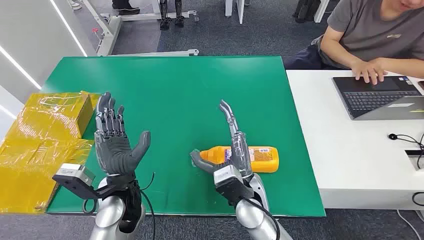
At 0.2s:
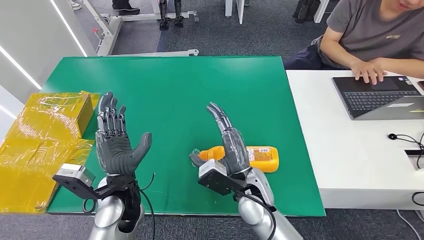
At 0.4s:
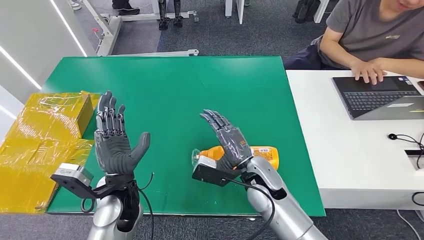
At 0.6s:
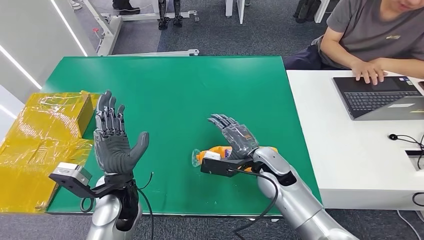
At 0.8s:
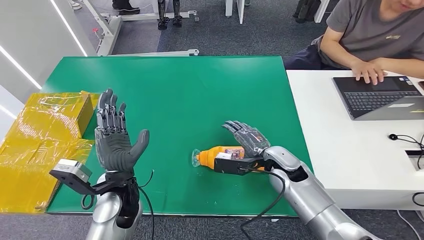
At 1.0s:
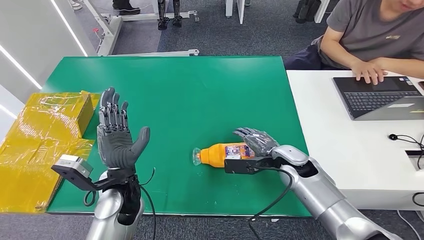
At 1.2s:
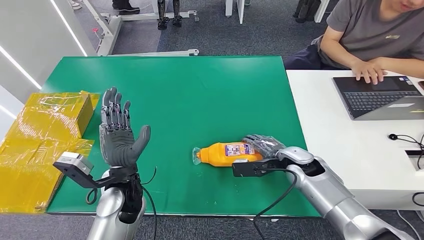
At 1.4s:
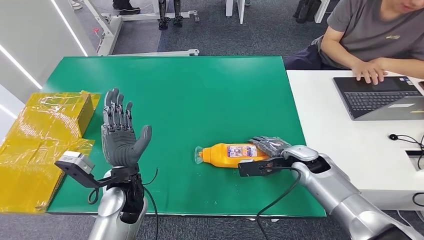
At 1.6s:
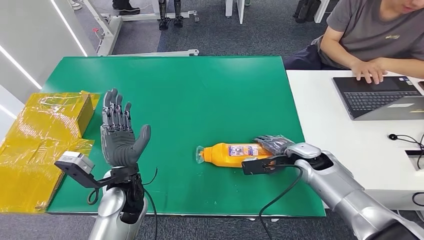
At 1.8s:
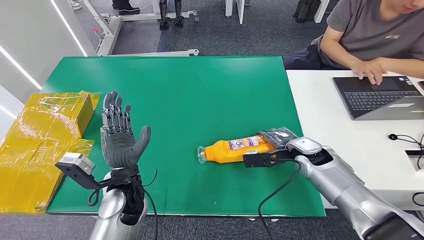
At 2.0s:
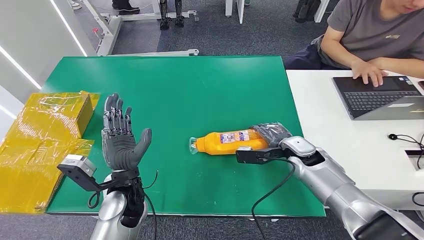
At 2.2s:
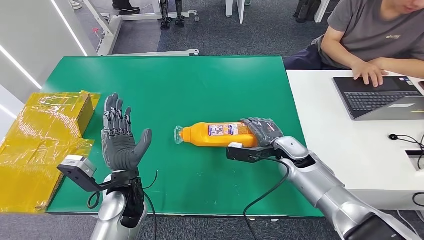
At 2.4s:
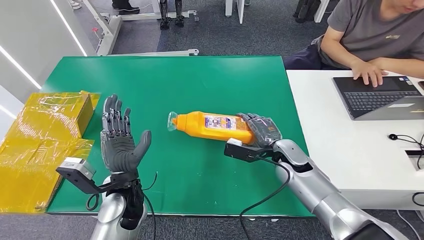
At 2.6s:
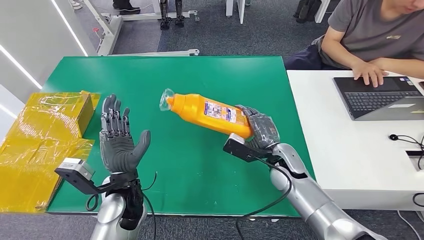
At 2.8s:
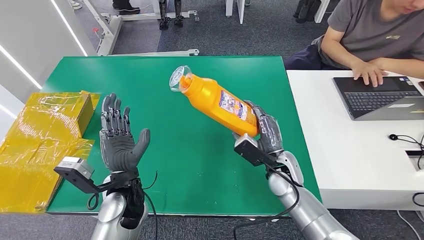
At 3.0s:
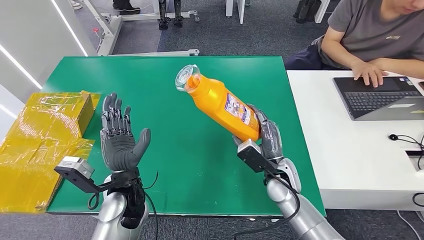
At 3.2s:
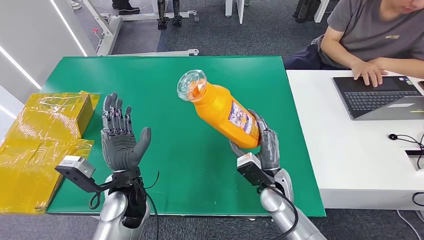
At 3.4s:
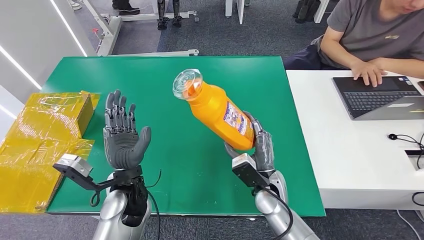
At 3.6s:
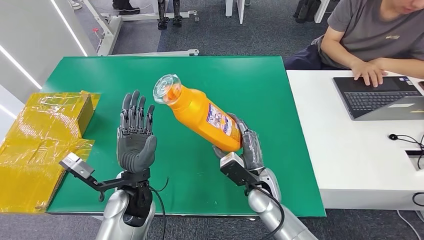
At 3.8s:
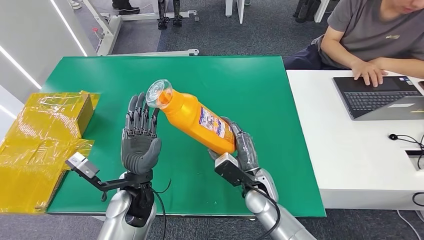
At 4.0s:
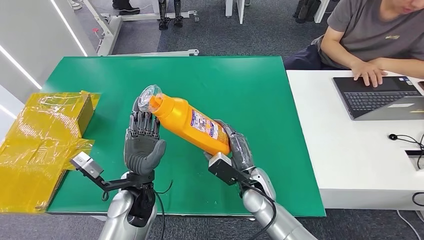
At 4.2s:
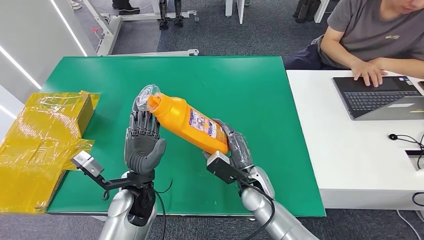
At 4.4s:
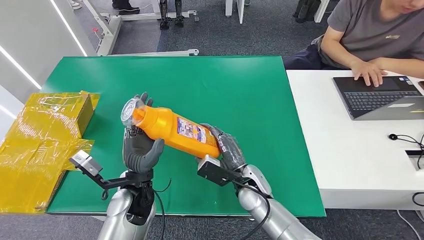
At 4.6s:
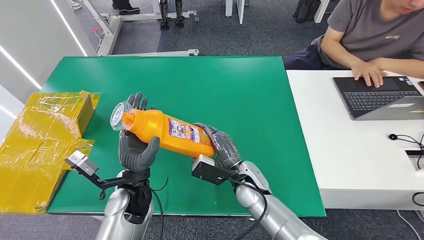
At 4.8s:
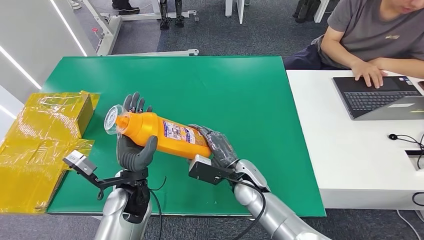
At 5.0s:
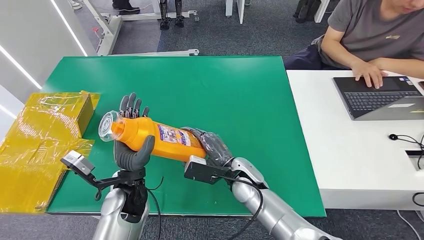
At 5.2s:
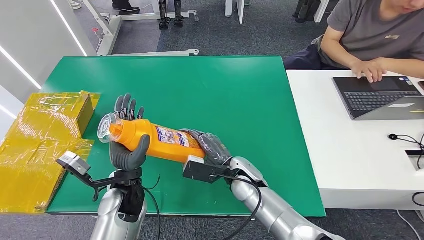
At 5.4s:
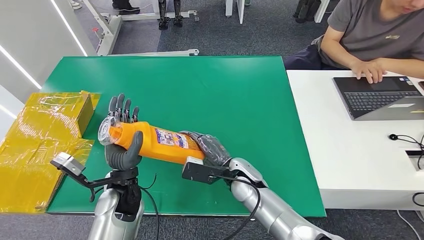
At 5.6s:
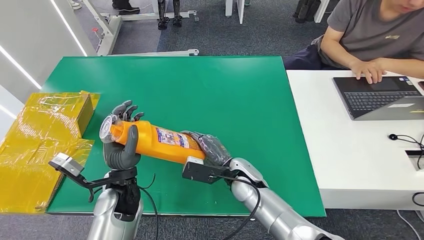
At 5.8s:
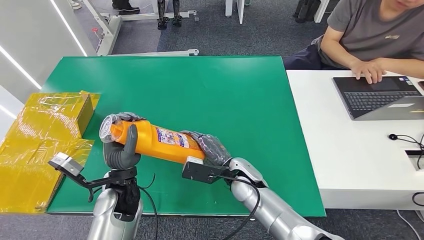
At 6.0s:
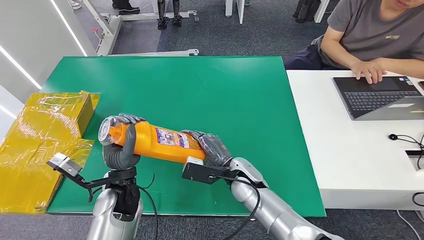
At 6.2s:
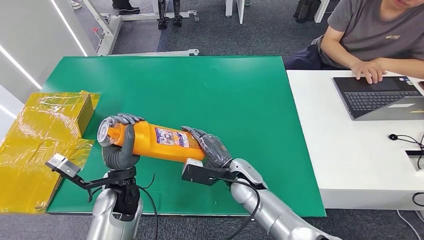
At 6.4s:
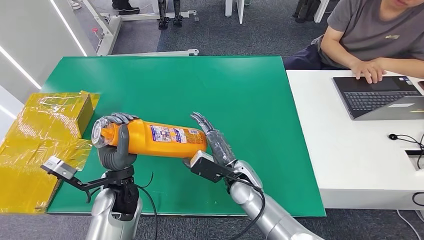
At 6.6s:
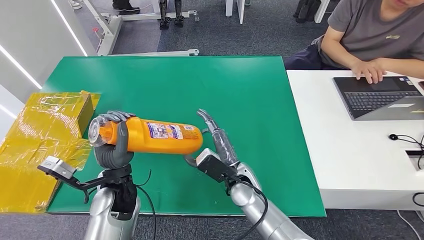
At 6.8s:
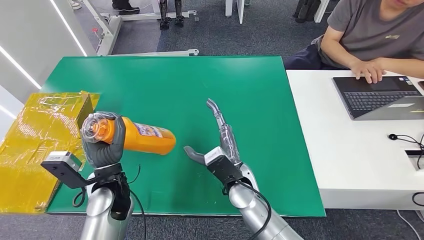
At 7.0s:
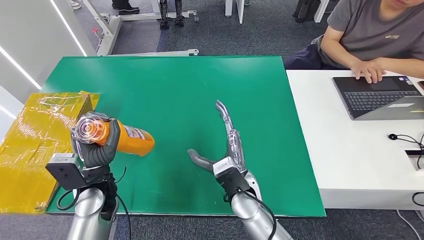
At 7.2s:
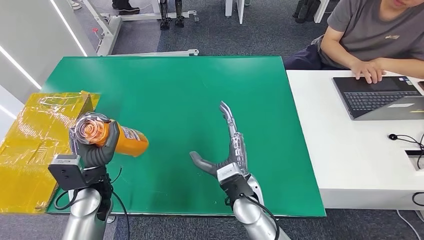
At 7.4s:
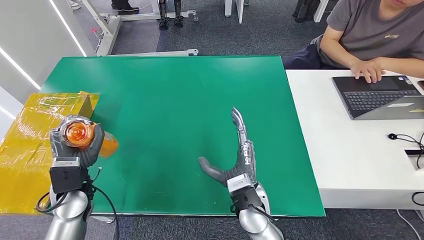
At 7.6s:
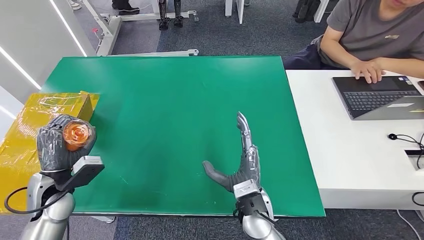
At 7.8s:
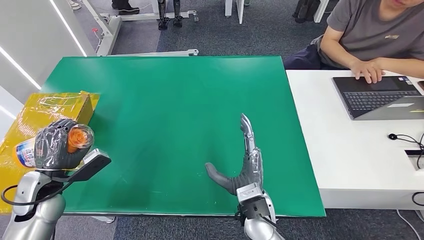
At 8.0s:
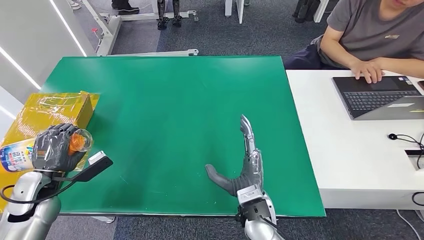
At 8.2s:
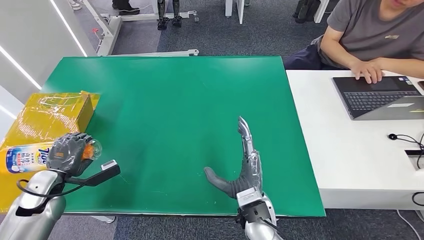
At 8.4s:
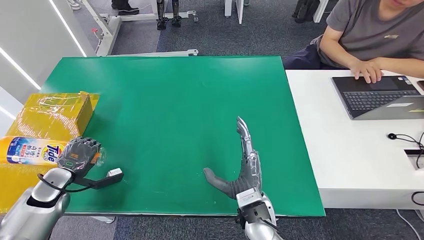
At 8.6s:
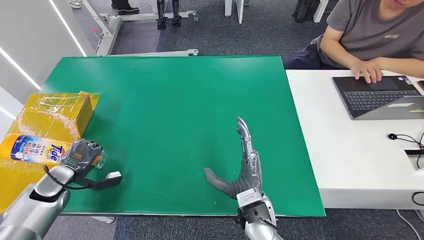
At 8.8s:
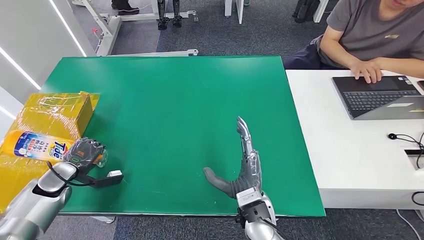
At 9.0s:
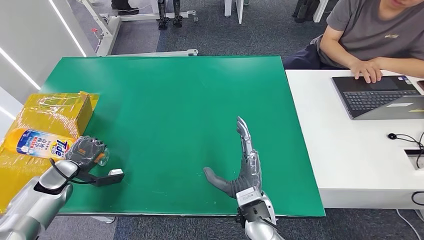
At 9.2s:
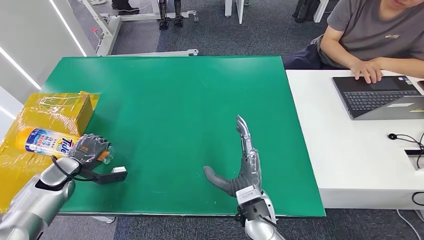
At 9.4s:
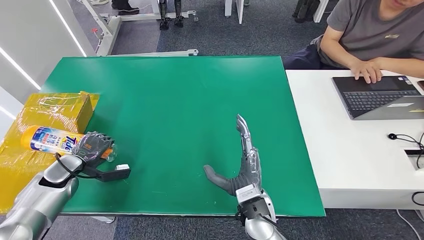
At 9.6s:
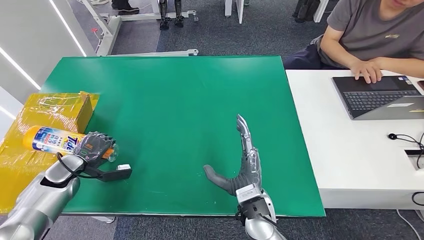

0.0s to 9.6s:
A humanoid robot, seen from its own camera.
Step, 0.0s to 3.0s: Pick up the bottle from the table.
1.6s to 3.2s: The right hand is displaced to the left and backward by some 15 cm.
3.2s to 4.8s: The right hand moves to the left, roughly 10 cm.
4.8s to 6.4s: The hands move only a little.
6.4s to 8.0s: The left hand is displaced to the left by about 20 cm; the right hand goes about 10 cm backward.
8.0s to 9.6s: The left hand shifts approximately 10 cm forward and downward.

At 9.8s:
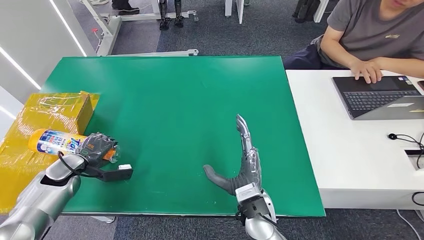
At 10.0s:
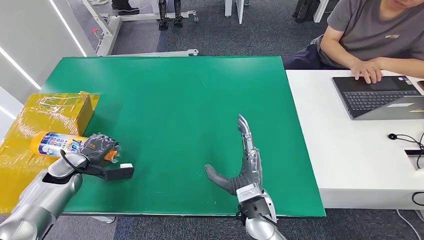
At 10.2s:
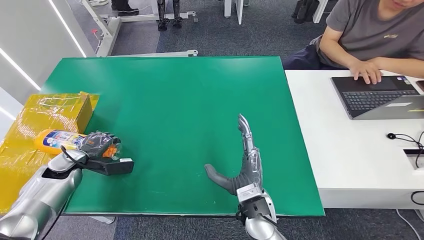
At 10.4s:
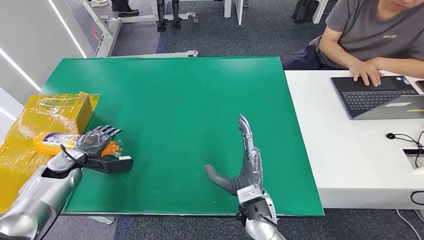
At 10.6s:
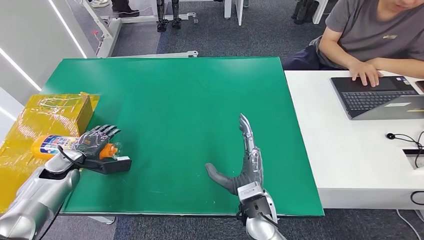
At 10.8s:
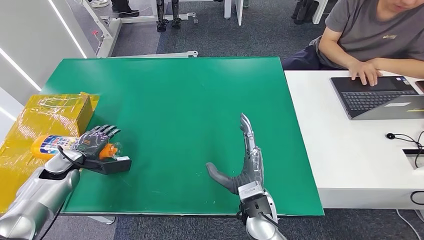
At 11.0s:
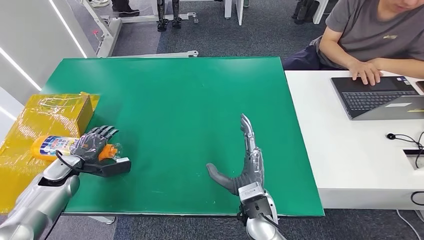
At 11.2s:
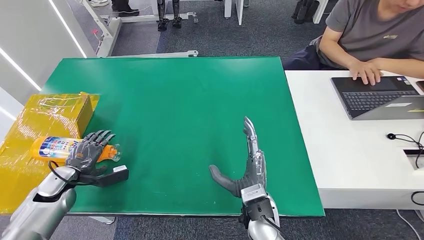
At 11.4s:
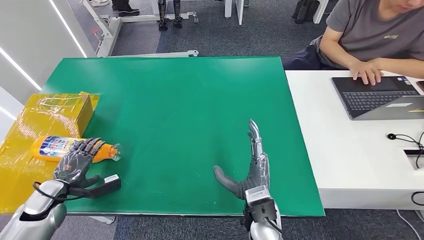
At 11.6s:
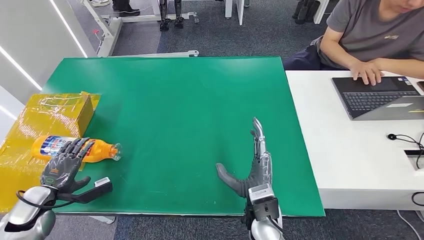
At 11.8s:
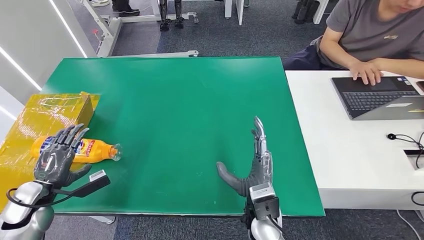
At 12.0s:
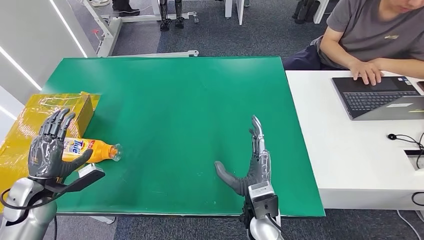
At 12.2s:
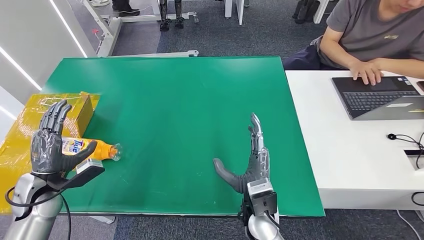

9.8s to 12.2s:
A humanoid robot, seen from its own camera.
Step, 9.8s to 12.2s: Turn the bottle to the front side.
9.8s to 11.0s: The hands move only a little.
11.0s to 12.2s: The left hand is displaced backward and upward by about 10 cm.

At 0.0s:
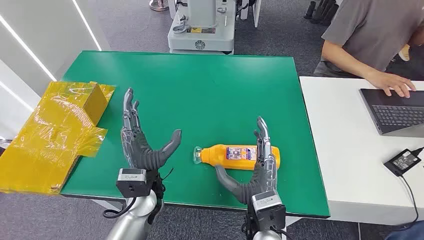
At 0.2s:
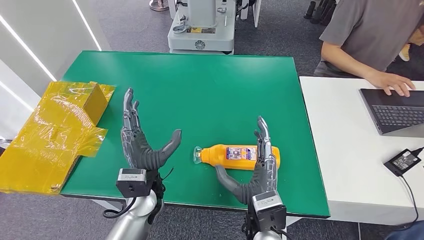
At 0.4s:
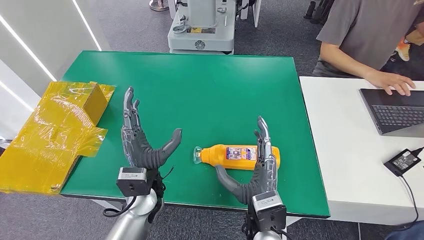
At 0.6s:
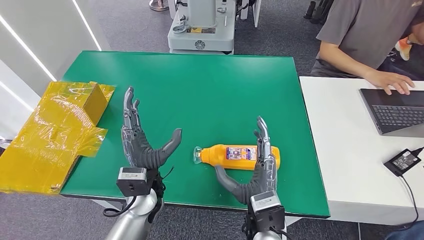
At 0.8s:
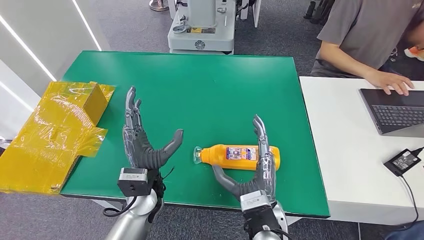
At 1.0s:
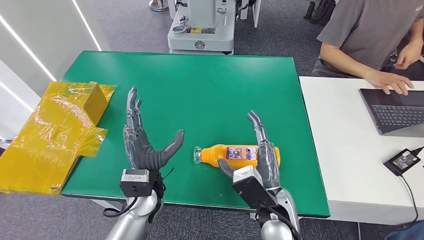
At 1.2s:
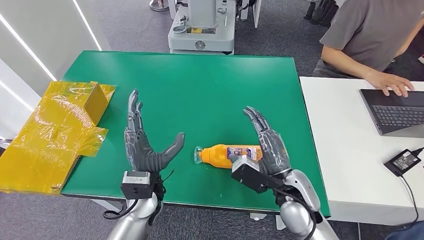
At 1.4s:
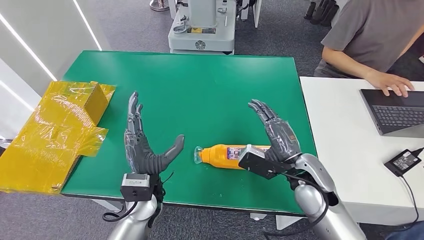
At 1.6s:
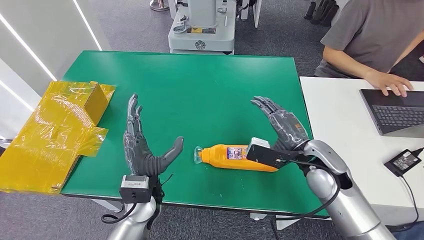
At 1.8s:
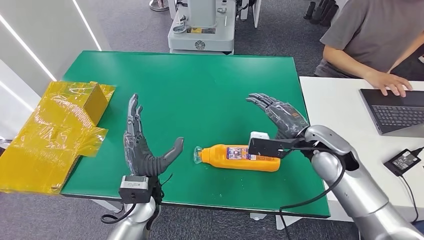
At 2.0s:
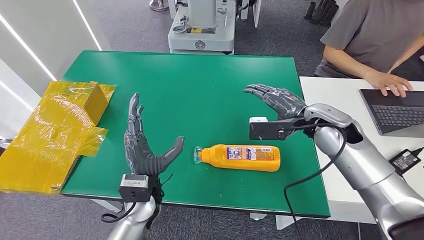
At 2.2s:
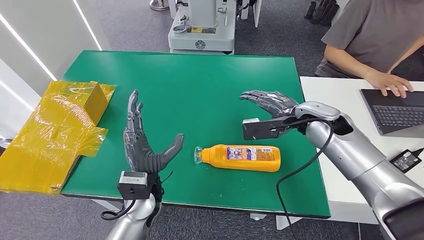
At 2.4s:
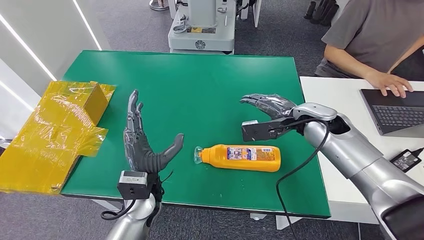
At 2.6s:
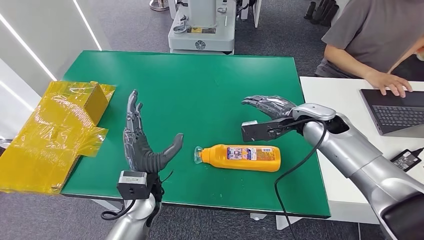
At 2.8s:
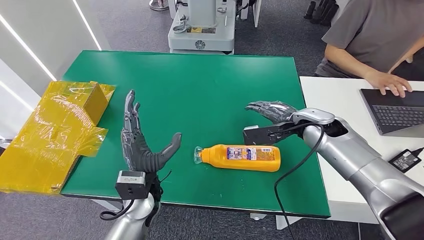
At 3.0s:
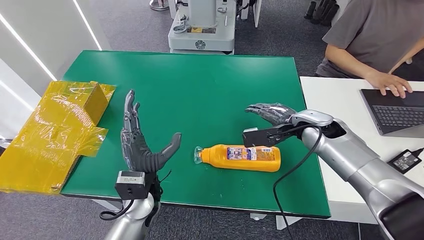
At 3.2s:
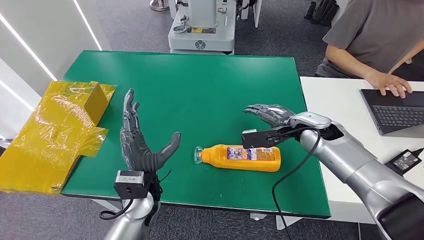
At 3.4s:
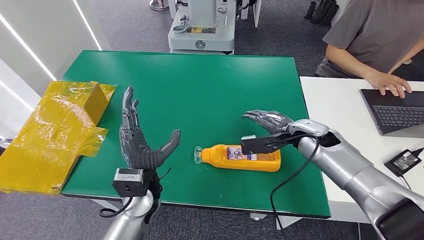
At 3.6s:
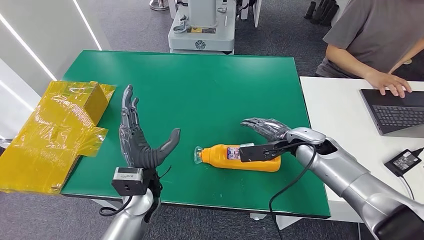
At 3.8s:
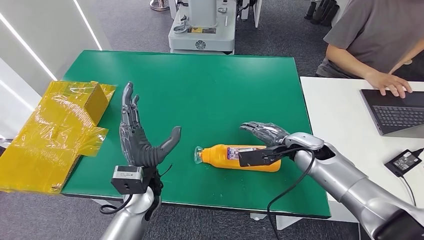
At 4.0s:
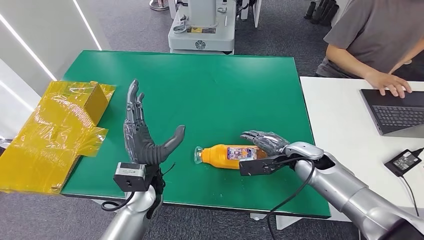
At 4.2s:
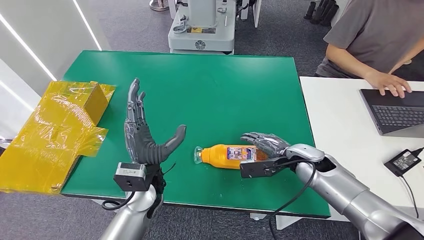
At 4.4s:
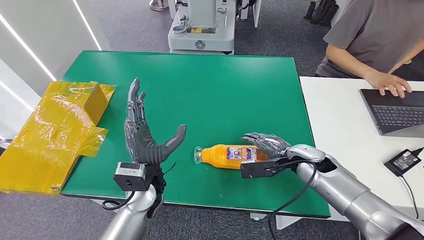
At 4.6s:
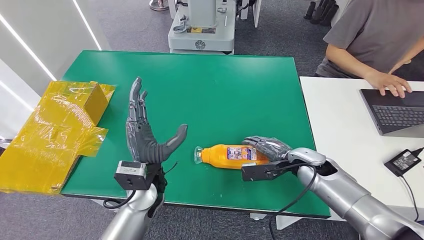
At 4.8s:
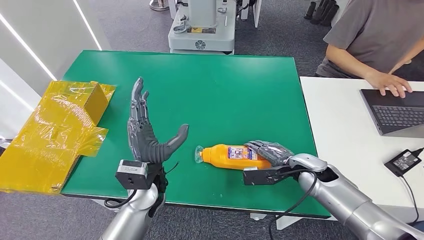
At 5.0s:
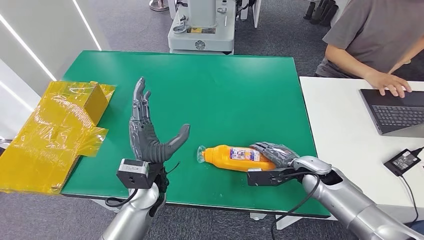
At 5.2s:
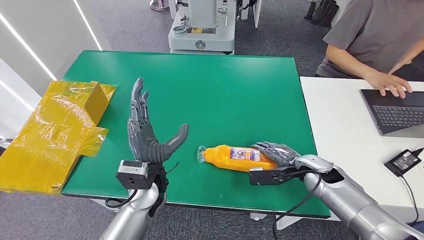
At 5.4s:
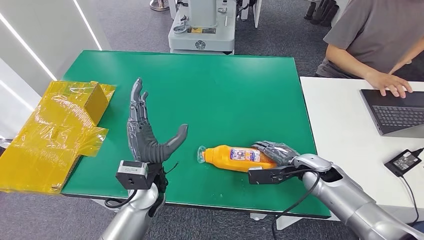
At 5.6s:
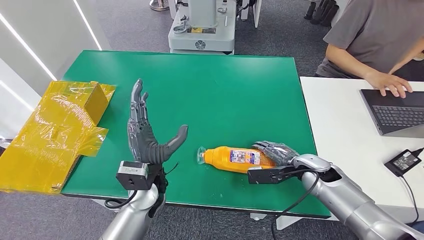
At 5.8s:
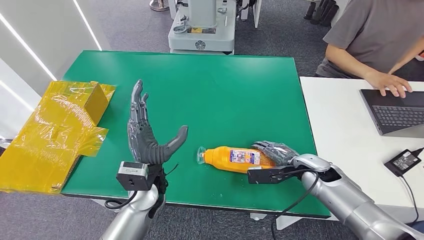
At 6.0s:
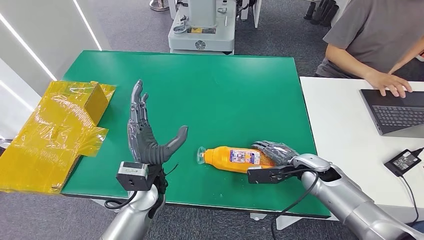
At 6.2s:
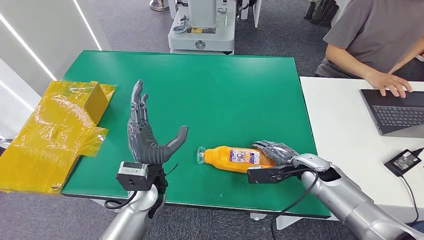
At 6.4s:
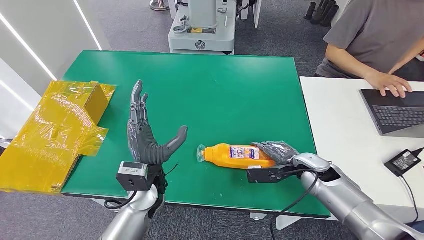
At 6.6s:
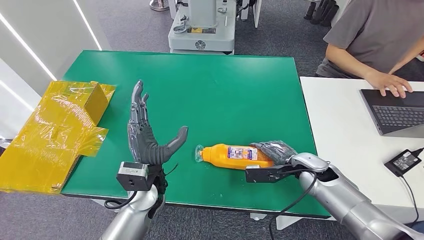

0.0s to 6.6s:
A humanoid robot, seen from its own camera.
1.6s to 3.2s: The right hand goes roughly 10 cm forward.
5.0s to 6.6s: Both hands stay put.
